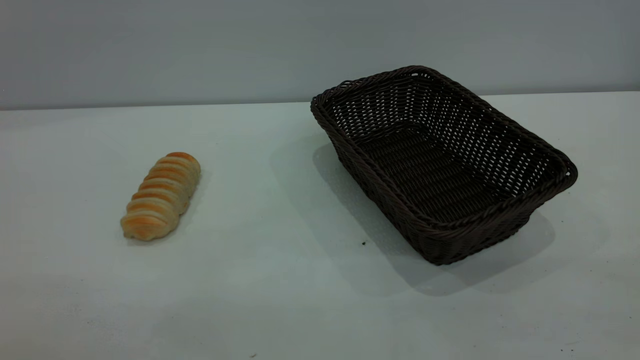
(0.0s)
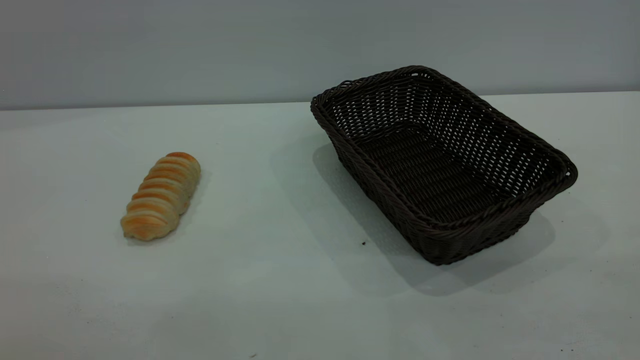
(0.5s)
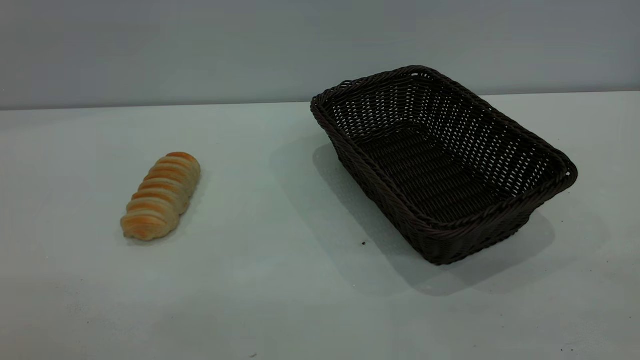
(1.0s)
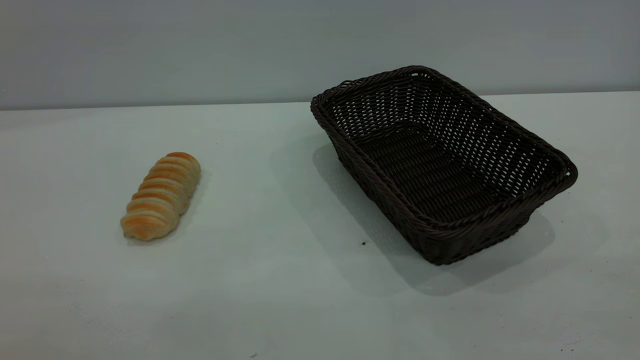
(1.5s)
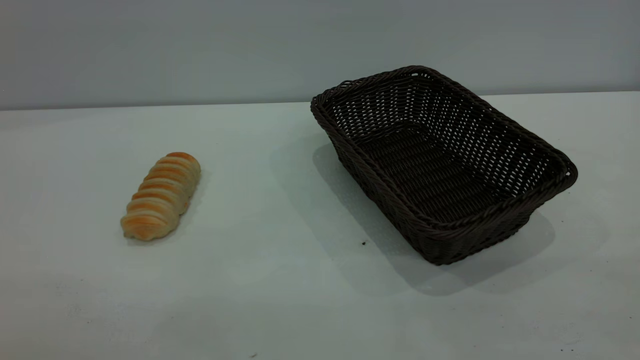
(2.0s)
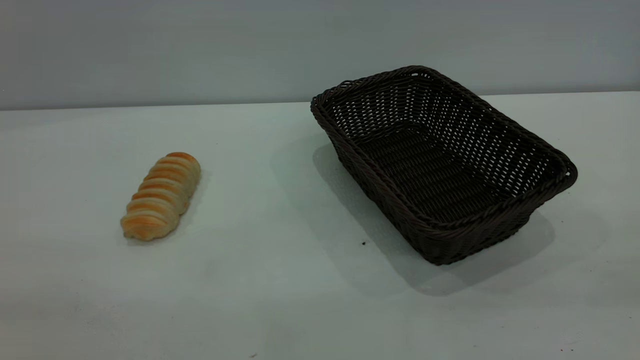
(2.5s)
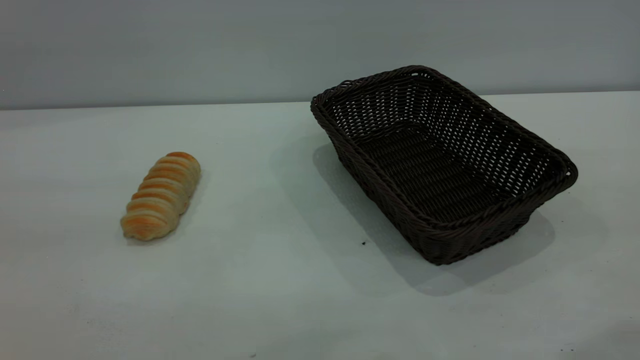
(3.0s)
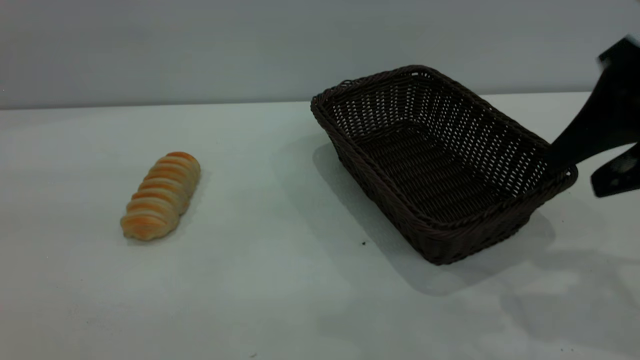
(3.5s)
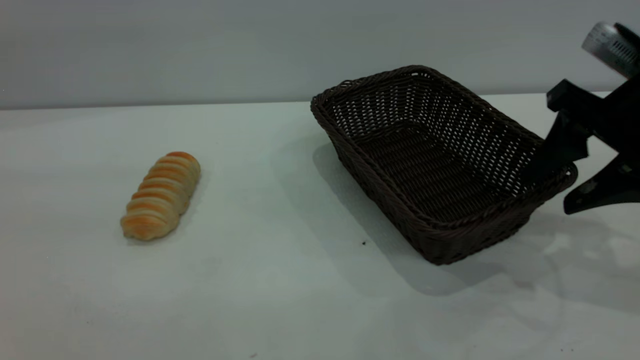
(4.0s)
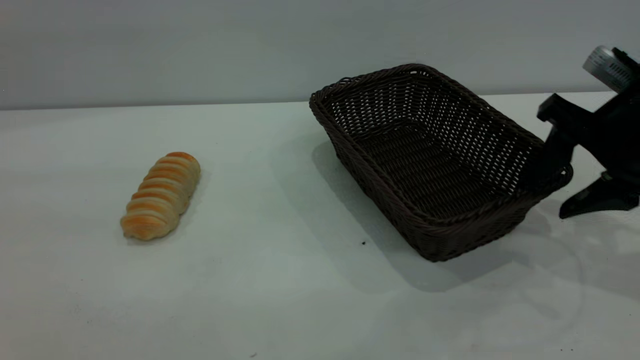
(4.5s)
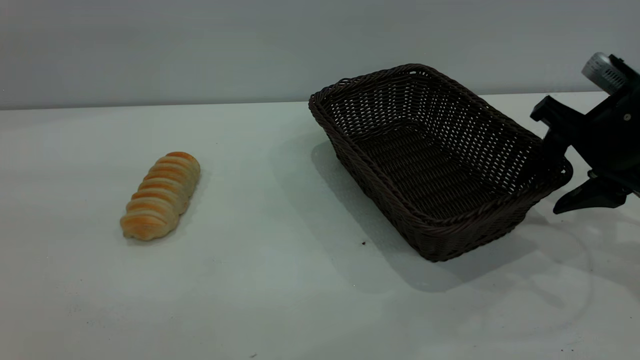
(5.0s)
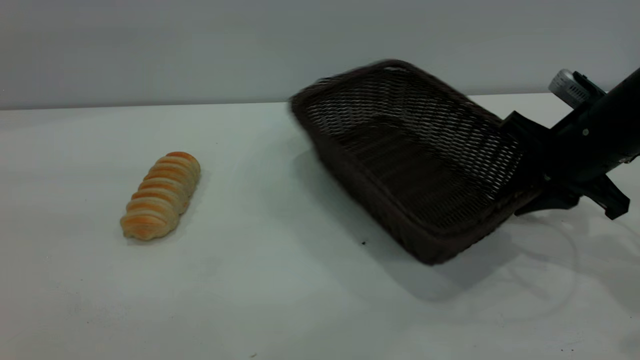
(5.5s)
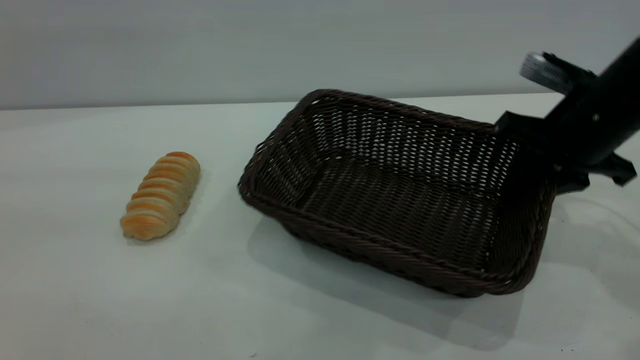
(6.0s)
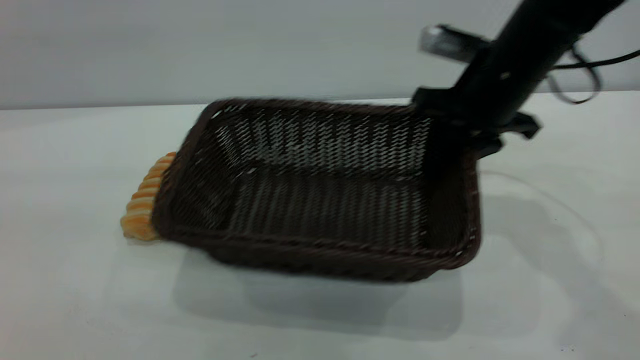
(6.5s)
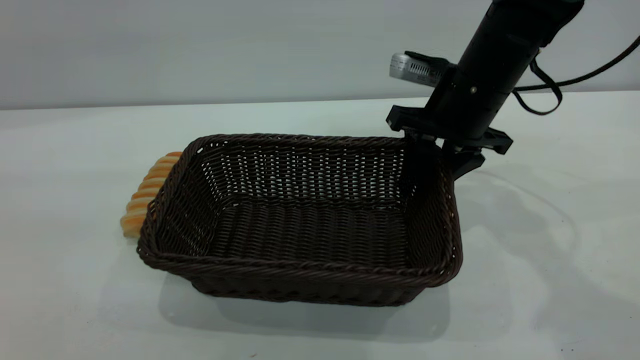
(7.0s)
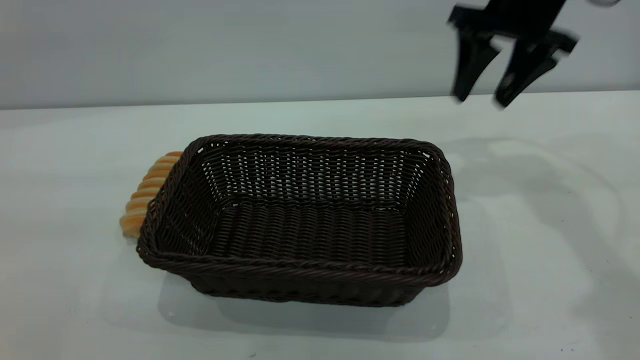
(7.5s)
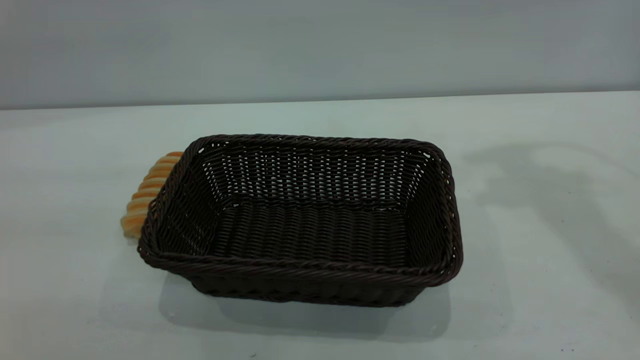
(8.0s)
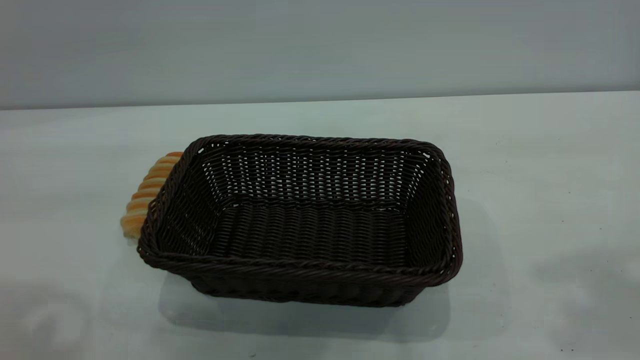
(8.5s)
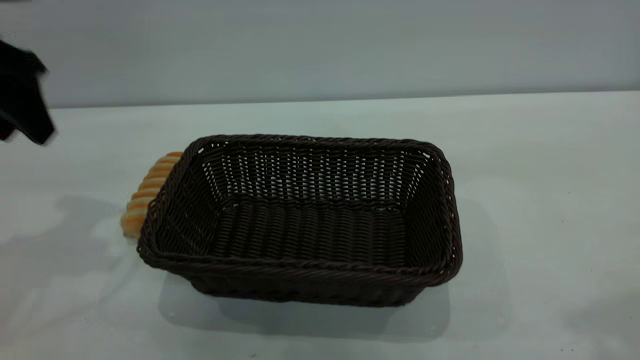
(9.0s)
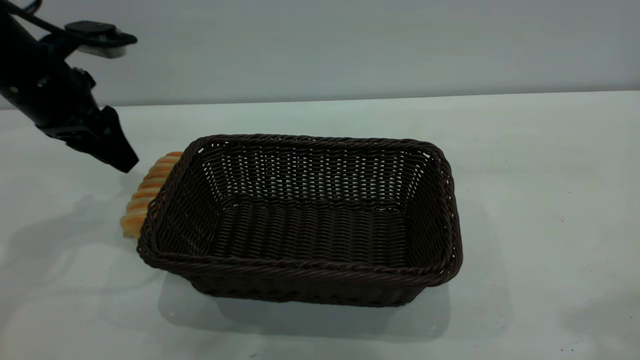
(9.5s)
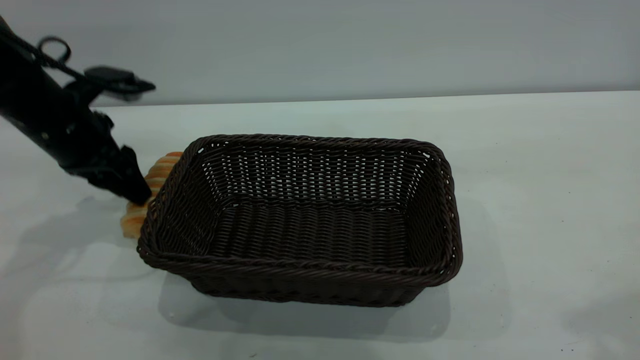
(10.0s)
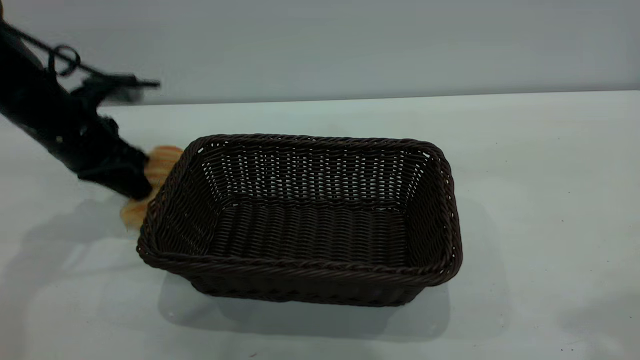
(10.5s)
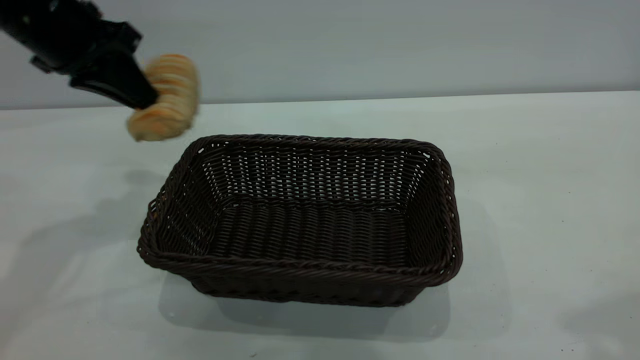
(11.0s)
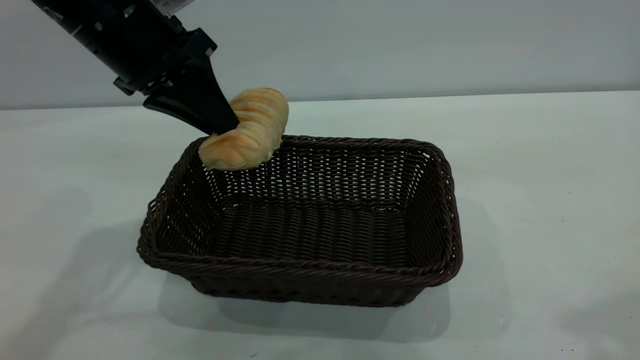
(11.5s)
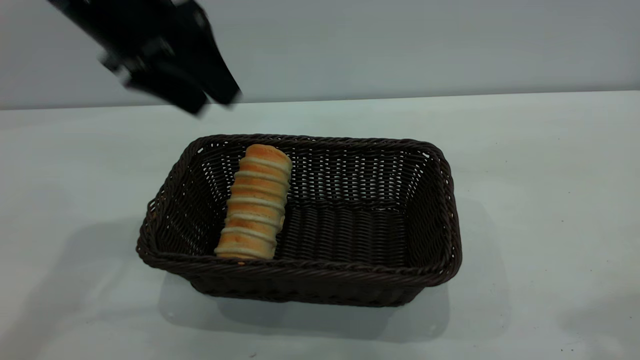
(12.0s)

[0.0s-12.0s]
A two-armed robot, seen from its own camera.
Task of the whole recording: One hand grasps the black basket and places it in the middle of the table, while the other hand picks up the long bread and puts it into the black basket.
Step, 0.0s to 7.0s: Move the basket to the center of view.
Step, 11.0s to 12.0s: place the bread into the basket.
0.0s to 2.0s: Neither gripper changes place.
2.0s to 4.0s: The right gripper goes about 35 cm forward and downward.
4.0s to 6.0s: The right gripper travels forward by approximately 5 cm, and closes its fingers.
6.0s to 8.0s: The right gripper travels upward by some 25 cm, and opens its fingers.
8.0s to 10.0s: The left gripper moves forward and downward, approximately 35 cm.
10.0s to 12.0s: The left gripper moves upward and to the right, roughly 20 cm, and closes and opens again.
